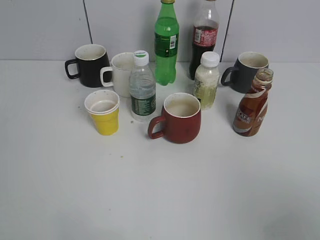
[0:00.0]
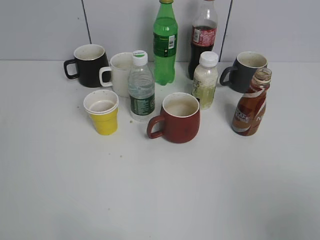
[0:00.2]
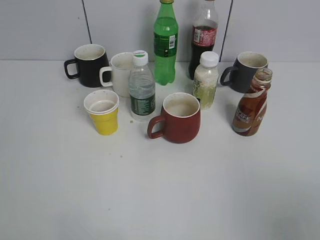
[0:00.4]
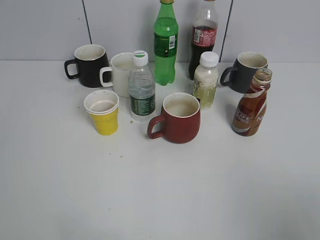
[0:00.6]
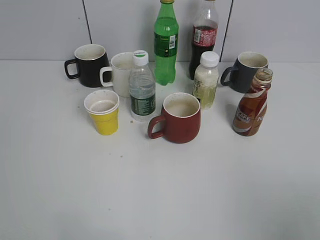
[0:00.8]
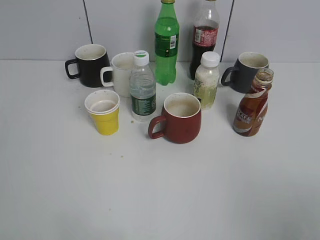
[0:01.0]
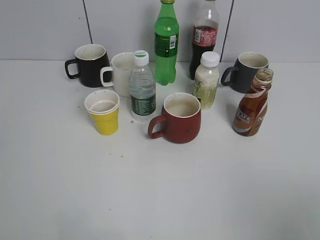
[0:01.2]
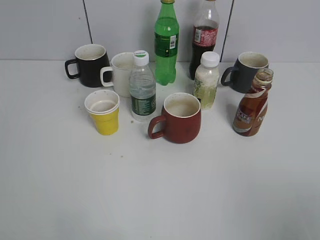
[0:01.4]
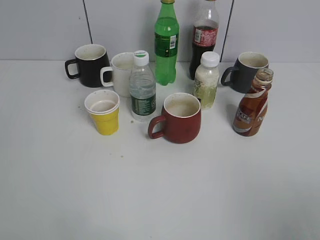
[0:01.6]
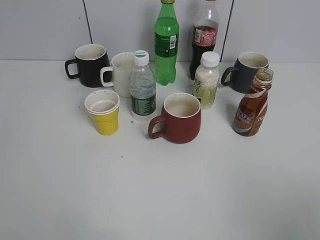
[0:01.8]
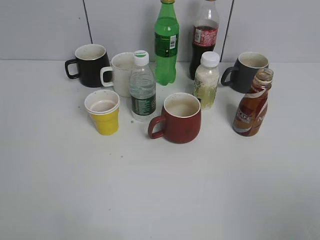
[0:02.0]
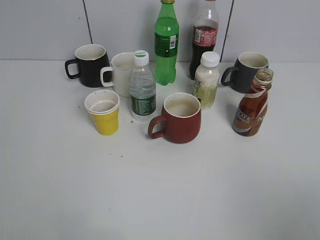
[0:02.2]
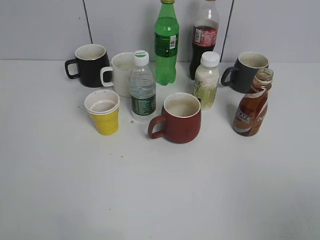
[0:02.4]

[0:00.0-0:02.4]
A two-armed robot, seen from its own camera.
0:01.2 to 0:02.4: Both grippers stay put.
